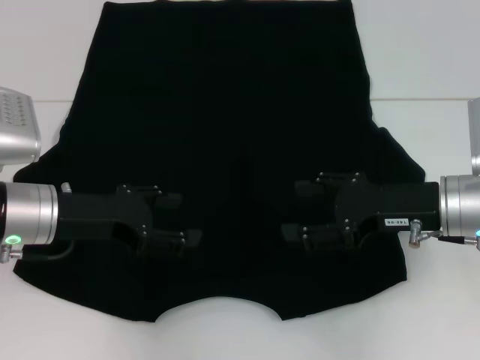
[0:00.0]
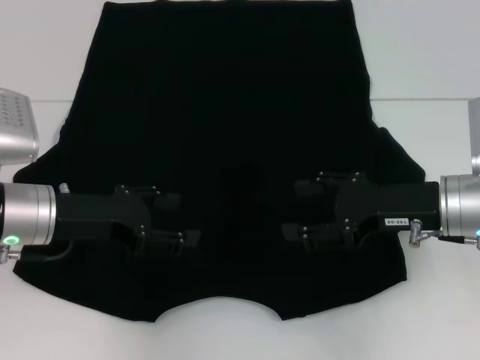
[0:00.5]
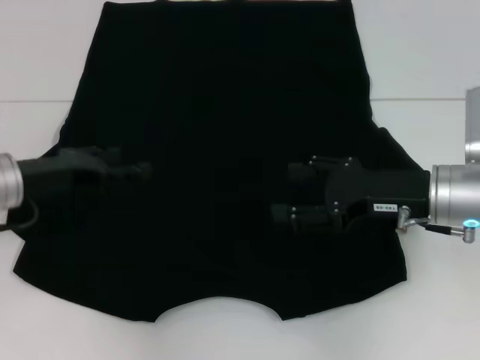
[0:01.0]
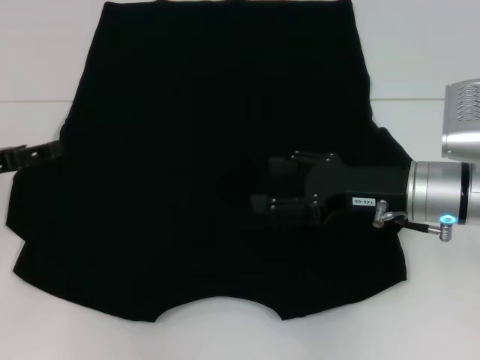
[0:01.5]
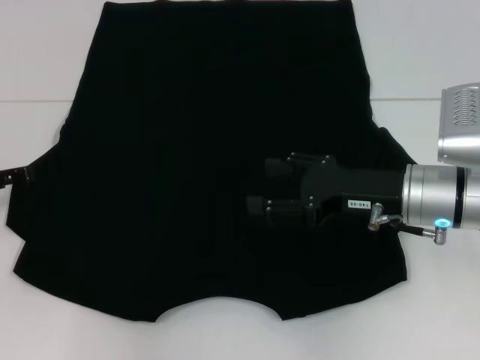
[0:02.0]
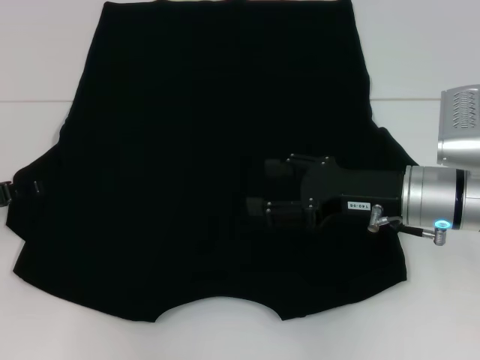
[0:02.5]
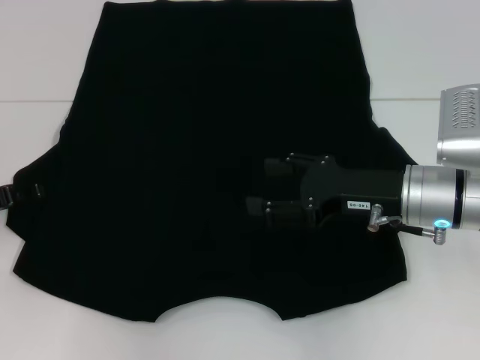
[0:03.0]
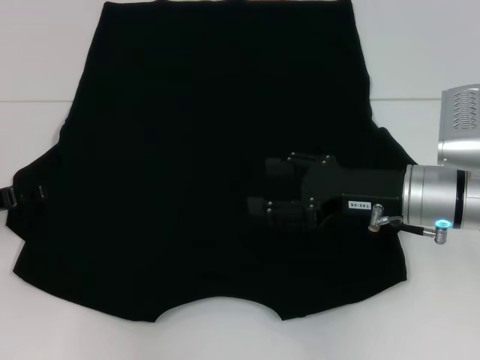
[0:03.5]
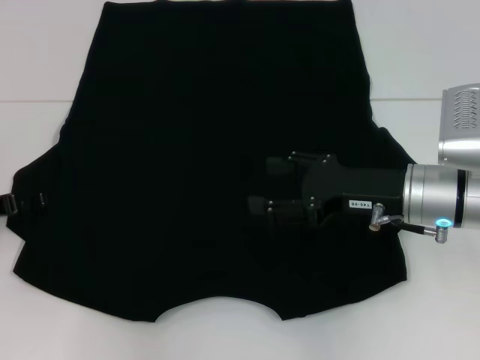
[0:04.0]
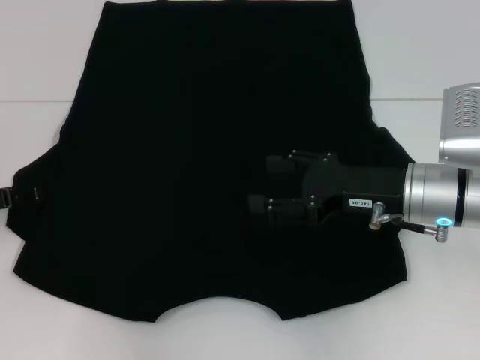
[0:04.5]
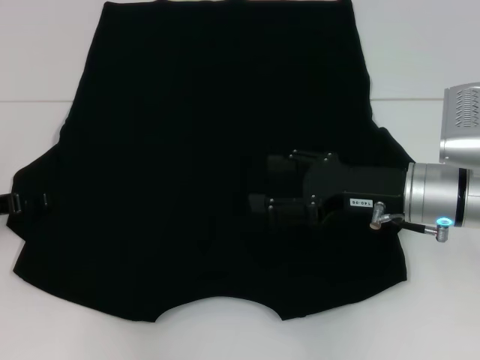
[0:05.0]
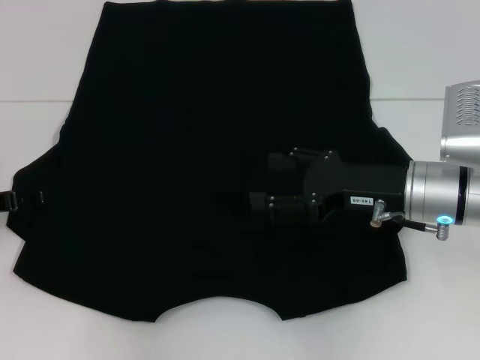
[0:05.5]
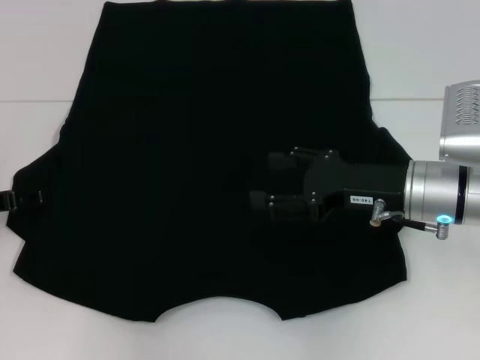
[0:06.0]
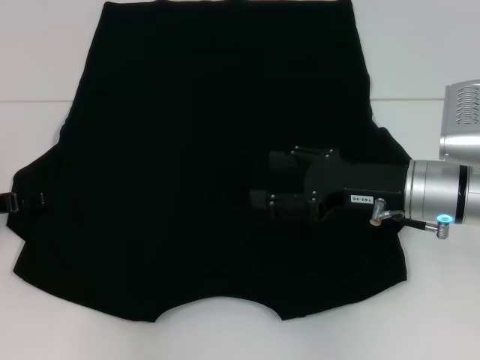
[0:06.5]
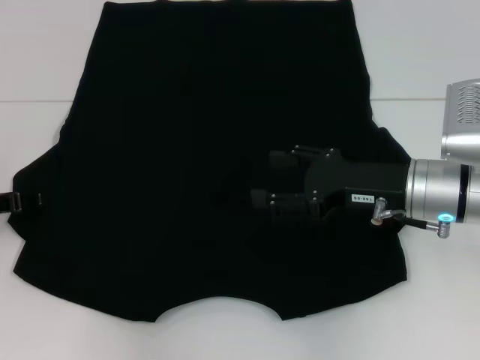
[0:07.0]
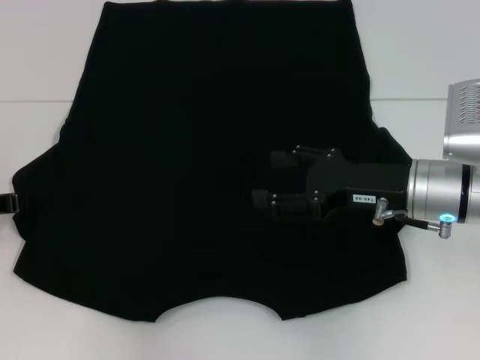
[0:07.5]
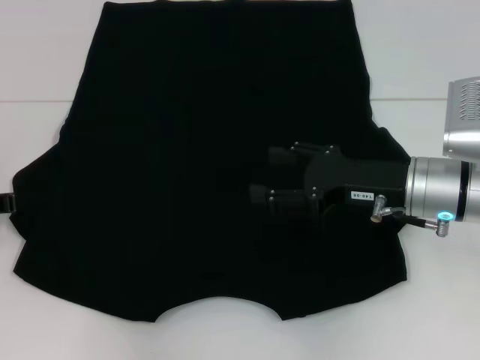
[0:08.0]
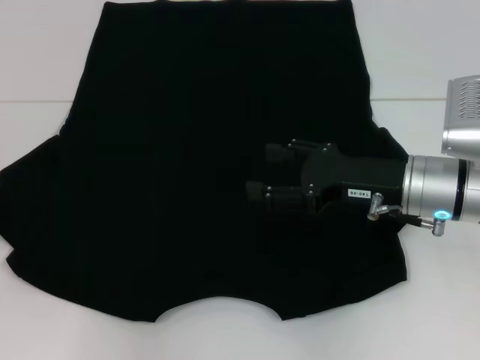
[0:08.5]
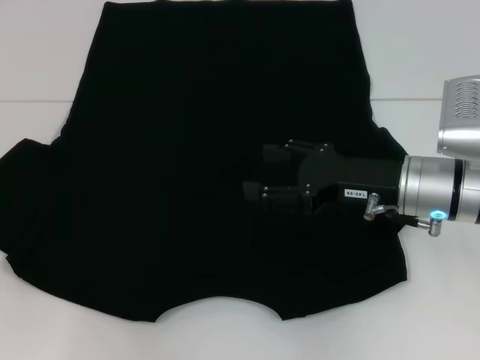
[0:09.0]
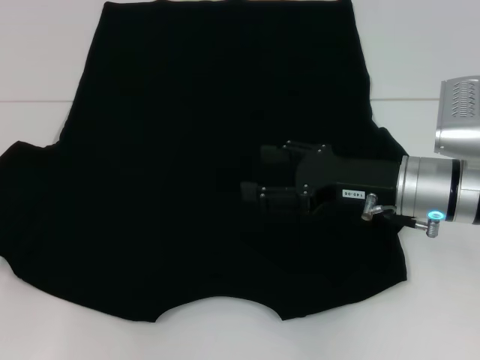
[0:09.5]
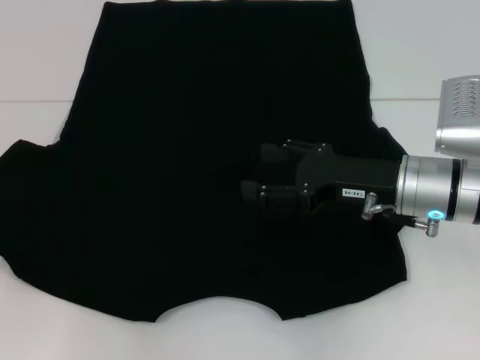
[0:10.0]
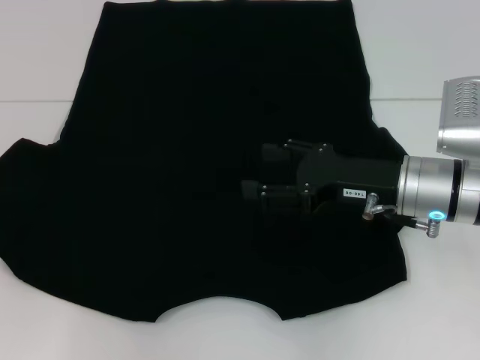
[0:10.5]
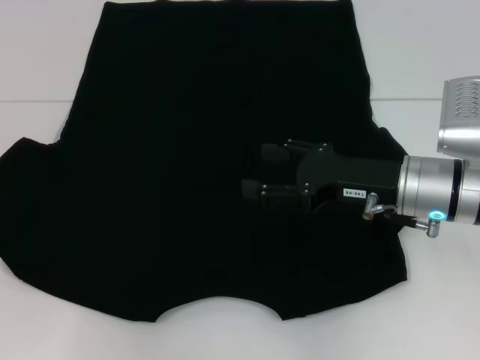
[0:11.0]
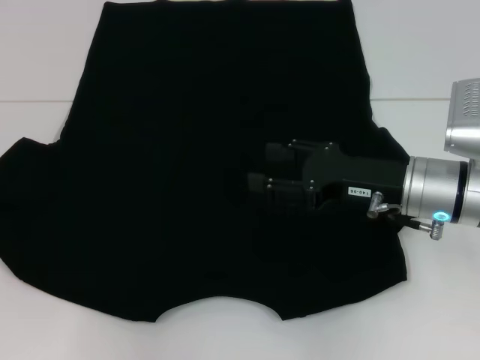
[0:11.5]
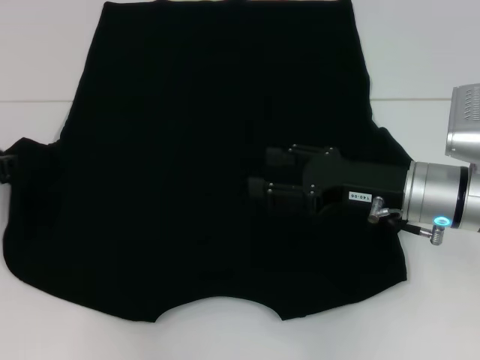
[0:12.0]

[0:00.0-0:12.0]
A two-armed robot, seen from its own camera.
0:00.0 to 0:02.0: The left gripper goes some 10 cm to the left.
0:02.0 to 0:06.0: The grippers stay close to where they were, moving slightly.
0:08.0 to 0:10.0: The grippers move only a little.
0:10.0 to 0:12.0: The left gripper moves about 5 cm.

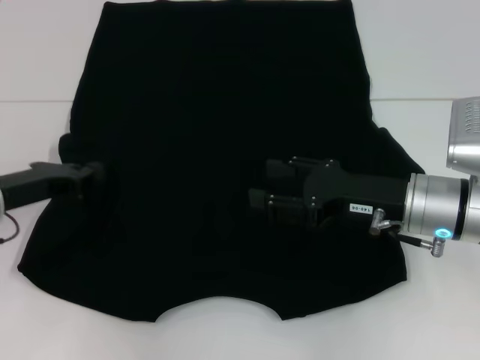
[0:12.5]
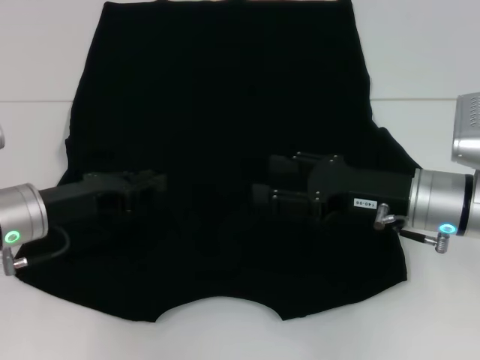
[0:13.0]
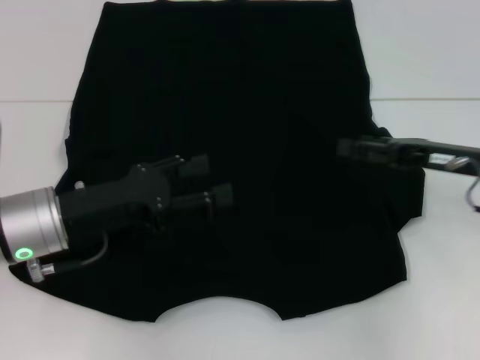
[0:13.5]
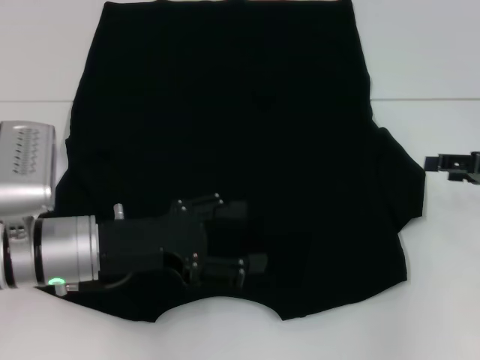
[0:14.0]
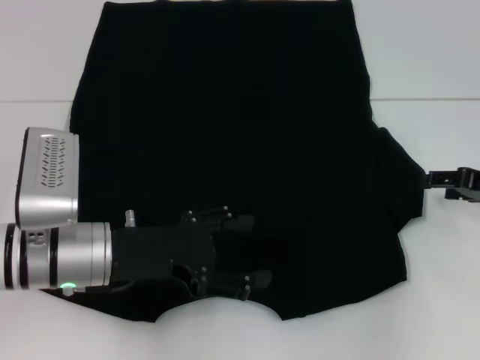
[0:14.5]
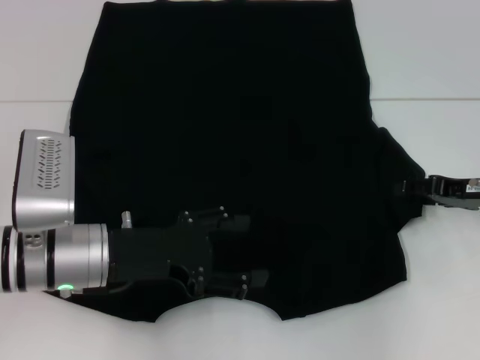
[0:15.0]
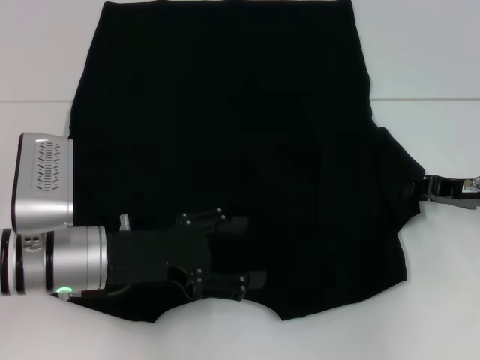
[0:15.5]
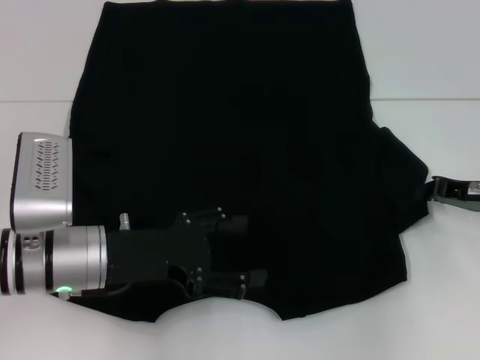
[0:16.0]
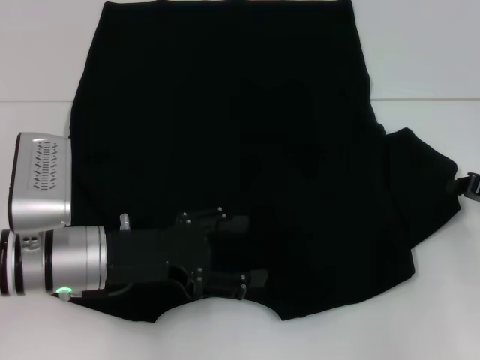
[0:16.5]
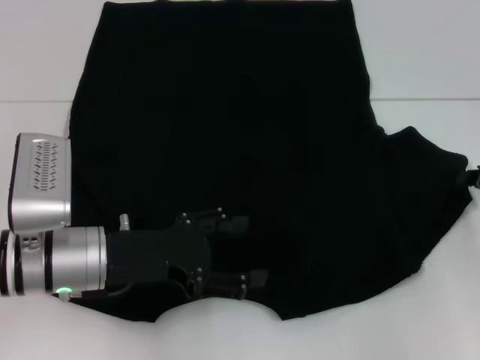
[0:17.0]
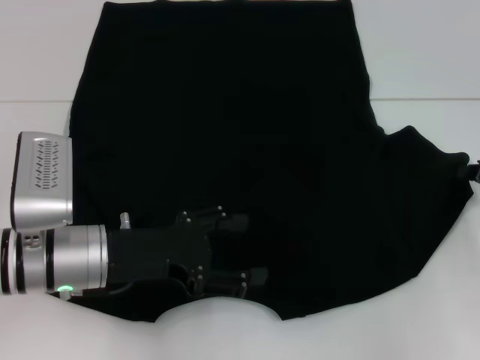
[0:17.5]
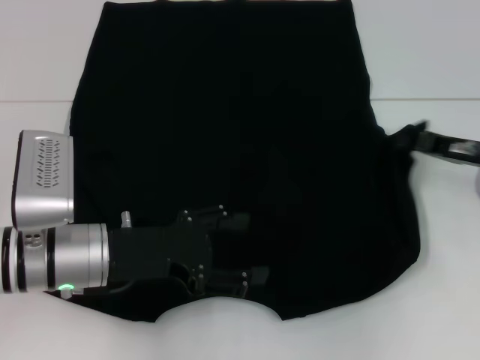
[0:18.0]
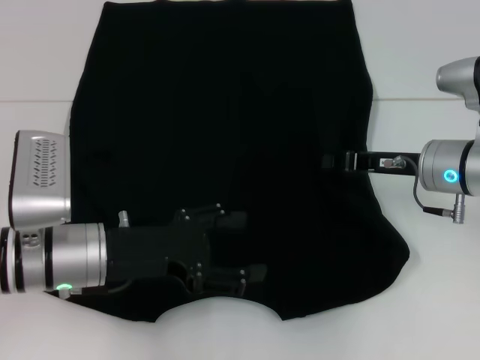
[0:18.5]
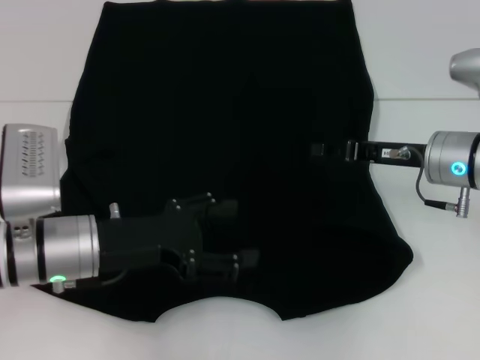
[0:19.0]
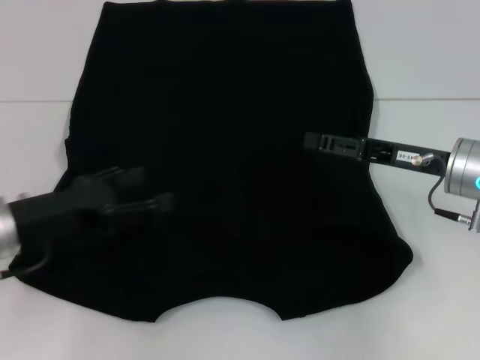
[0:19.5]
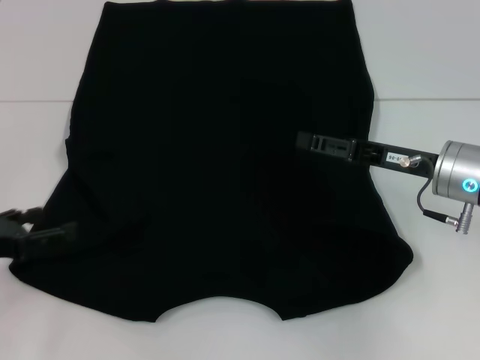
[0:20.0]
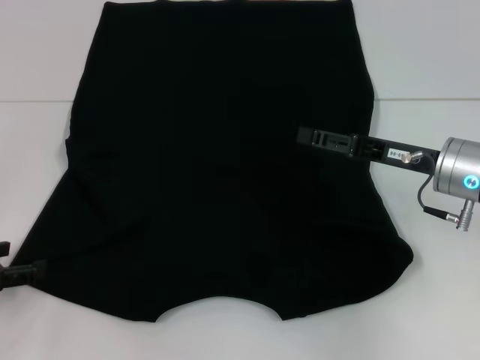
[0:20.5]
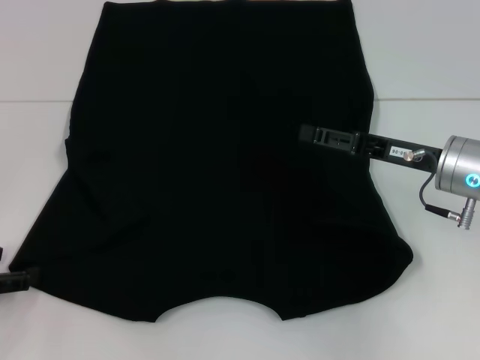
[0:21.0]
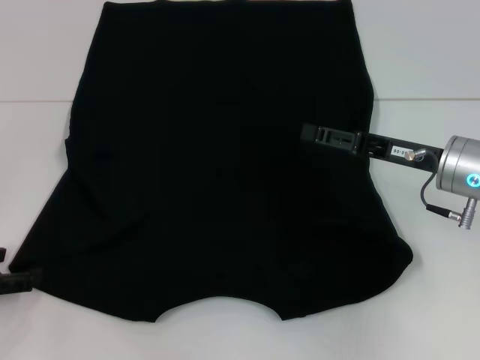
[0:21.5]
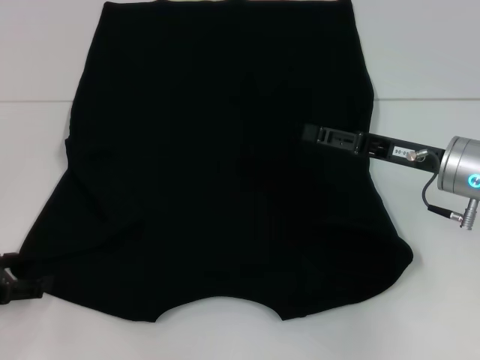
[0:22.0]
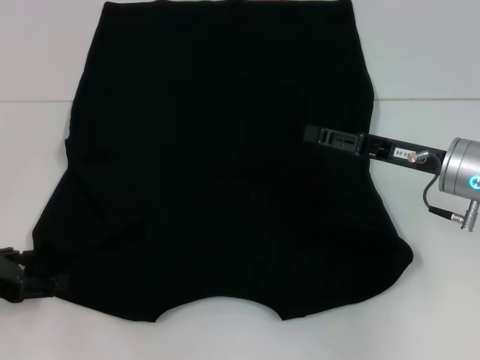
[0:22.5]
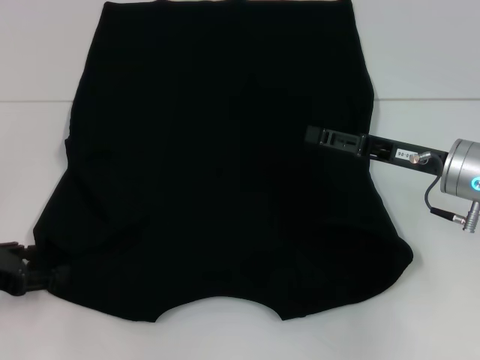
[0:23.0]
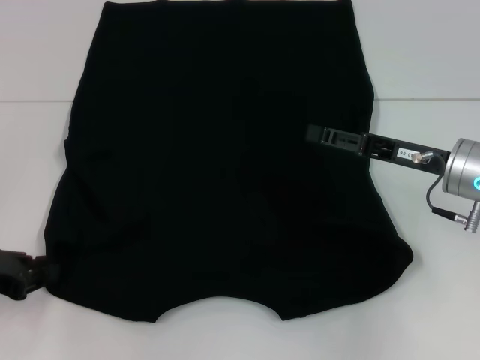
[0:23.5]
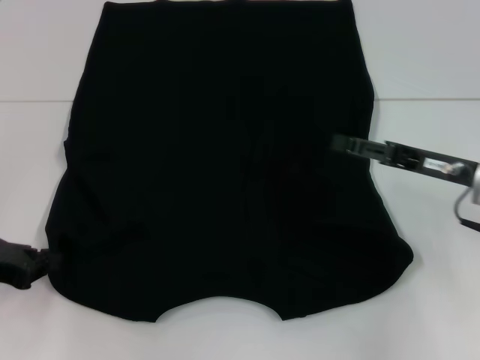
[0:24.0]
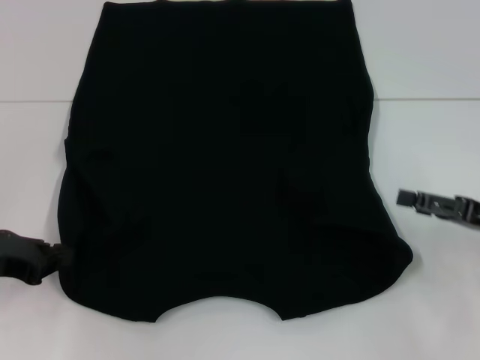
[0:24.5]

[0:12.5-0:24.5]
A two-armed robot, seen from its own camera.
Step, 0:13.5 to 0:18.5: Fold the bottom right sleeve with your right hand.
Step, 0:19.0 to 0:23.5: Grab the bottom left corner with your left hand.
0:12.5 to 0:14.5: Both grippers travel together to the right, approximately 15 cm. The left gripper opens up.
0:14.5 to 0:16.5: The right gripper closes its fingers.
0:16.5 to 0:18.5: The right gripper is displaced to the left by some 10 cm.
0:18.5 to 0:20.5: The right gripper opens up; the left gripper moves to the left, approximately 15 cm.
0:20.5 to 0:22.5: The grippers move only a little.
0:22.5 to 0:24.5: The left gripper closes; the right gripper goes about 10 cm to the right and backward.

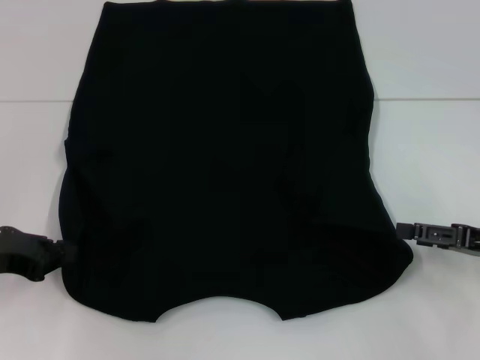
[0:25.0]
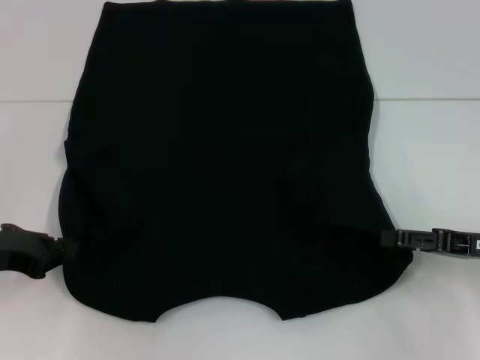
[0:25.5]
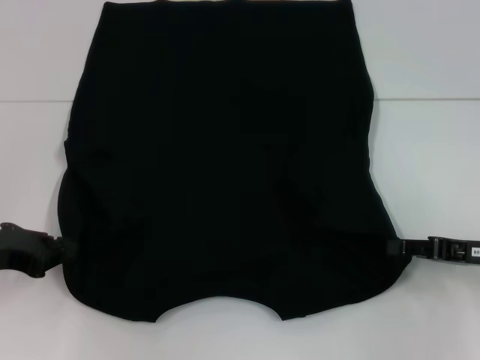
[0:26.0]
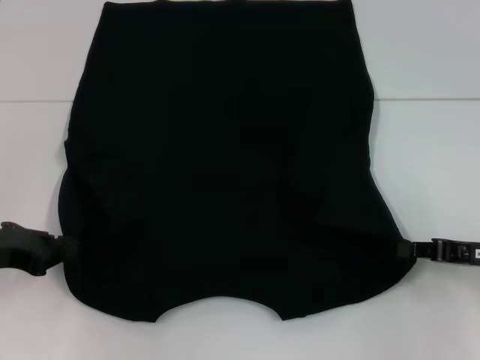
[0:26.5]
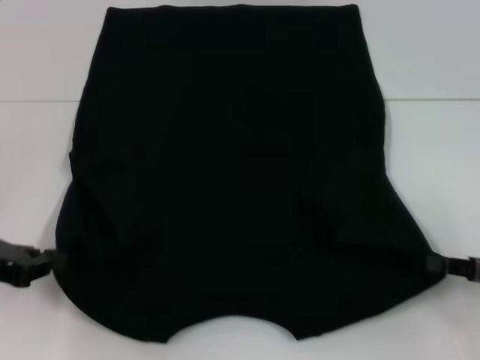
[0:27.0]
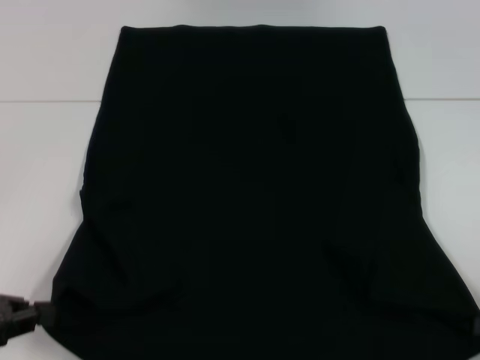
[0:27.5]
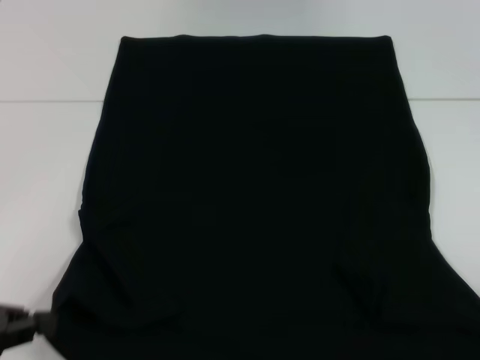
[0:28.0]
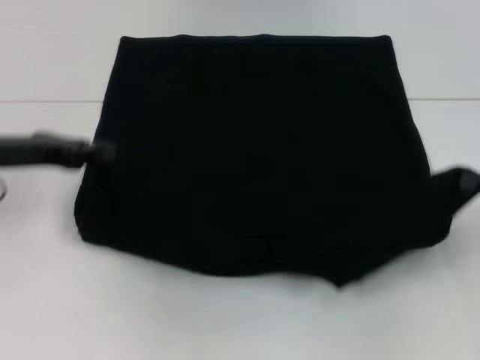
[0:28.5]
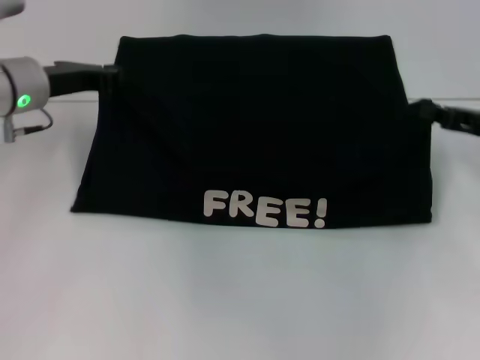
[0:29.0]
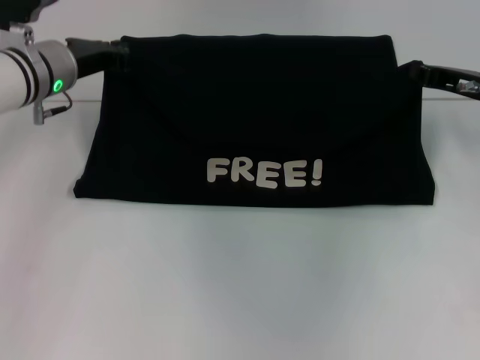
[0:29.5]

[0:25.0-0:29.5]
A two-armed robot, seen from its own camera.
0:25.0 to 0:27.0: The right gripper closes its fingers.
0:27.0 to 0:29.5: The left gripper shifts approximately 20 cm forward and to the right. The right gripper goes roughly 20 cm forward and upward.
